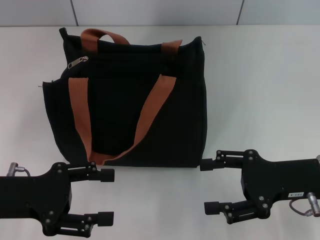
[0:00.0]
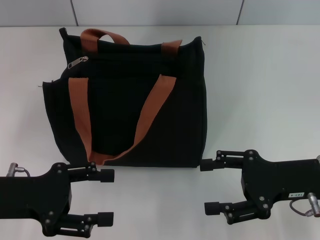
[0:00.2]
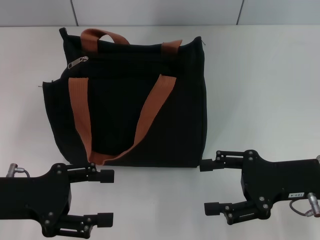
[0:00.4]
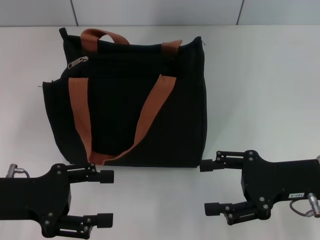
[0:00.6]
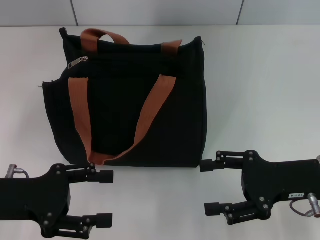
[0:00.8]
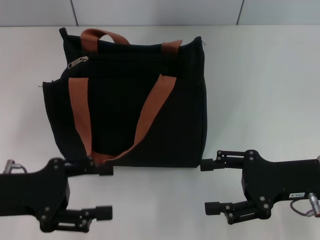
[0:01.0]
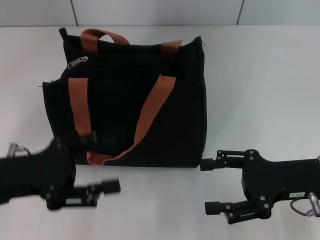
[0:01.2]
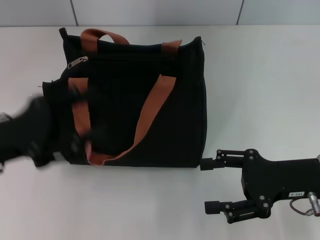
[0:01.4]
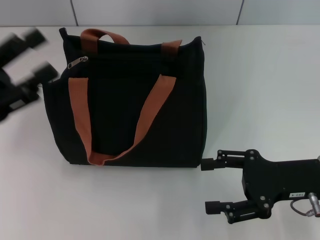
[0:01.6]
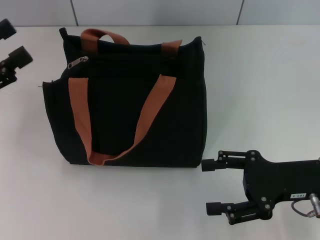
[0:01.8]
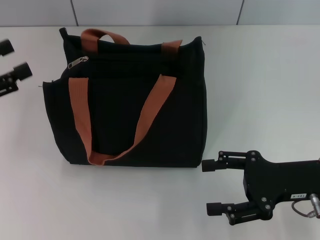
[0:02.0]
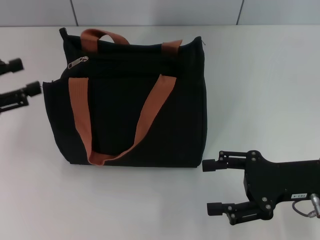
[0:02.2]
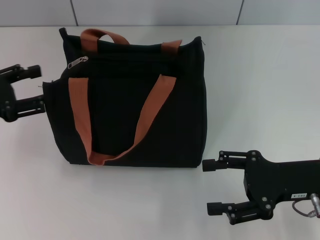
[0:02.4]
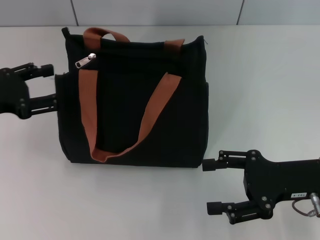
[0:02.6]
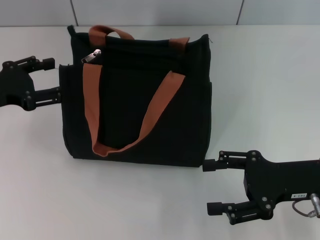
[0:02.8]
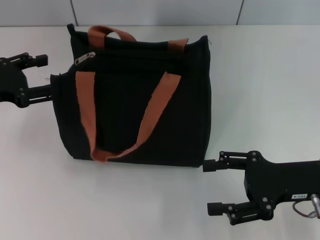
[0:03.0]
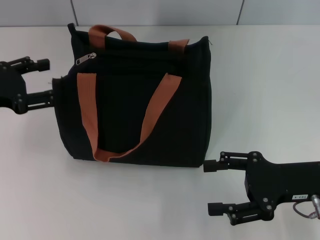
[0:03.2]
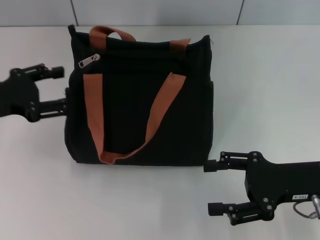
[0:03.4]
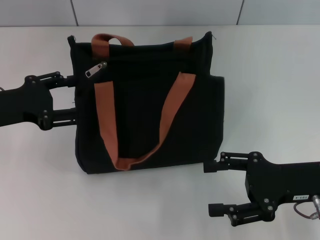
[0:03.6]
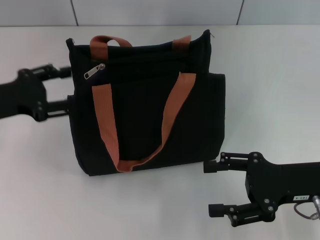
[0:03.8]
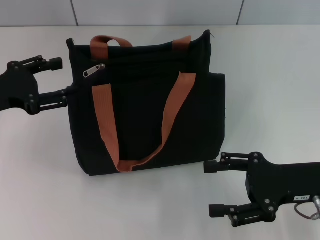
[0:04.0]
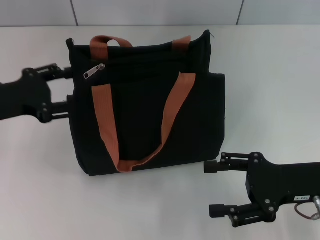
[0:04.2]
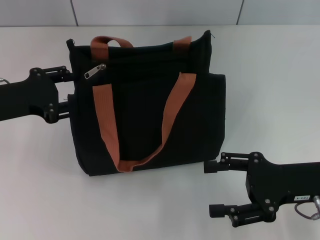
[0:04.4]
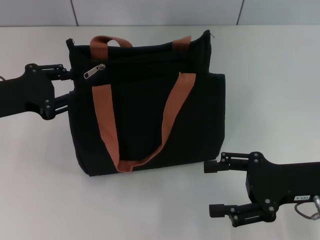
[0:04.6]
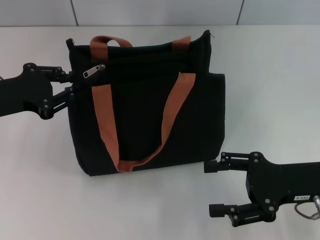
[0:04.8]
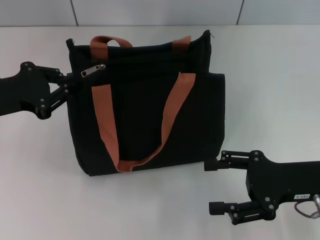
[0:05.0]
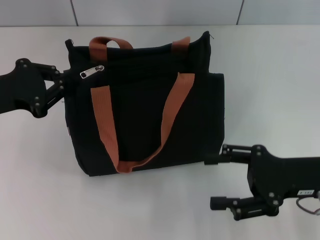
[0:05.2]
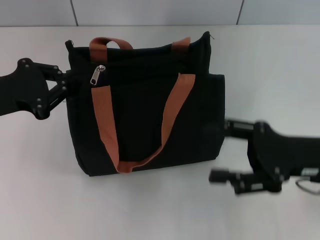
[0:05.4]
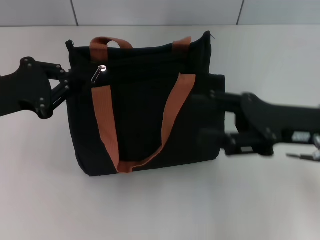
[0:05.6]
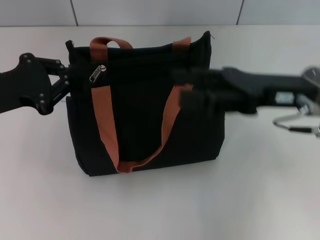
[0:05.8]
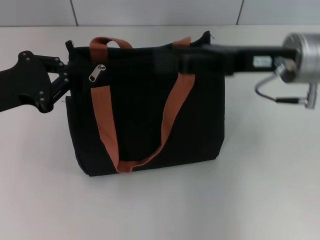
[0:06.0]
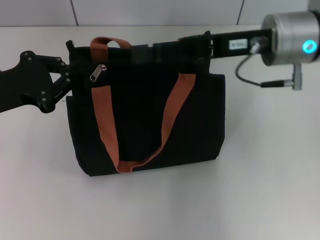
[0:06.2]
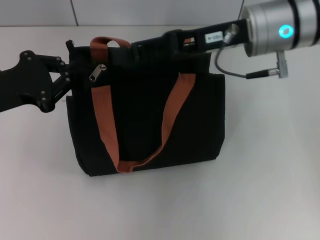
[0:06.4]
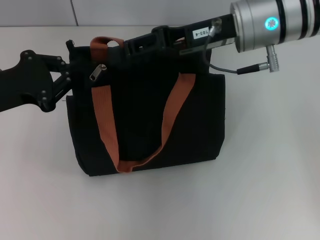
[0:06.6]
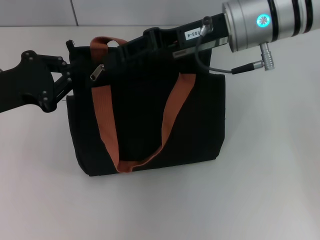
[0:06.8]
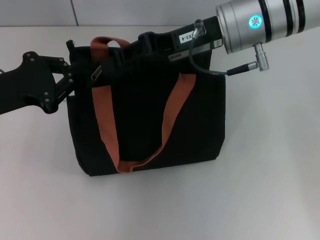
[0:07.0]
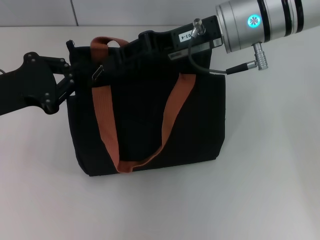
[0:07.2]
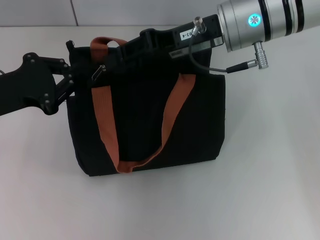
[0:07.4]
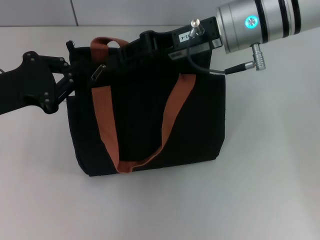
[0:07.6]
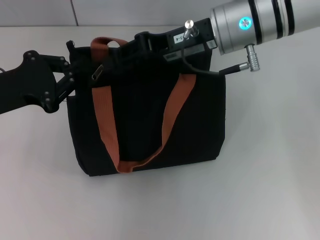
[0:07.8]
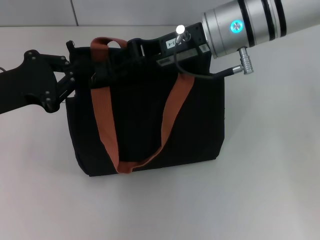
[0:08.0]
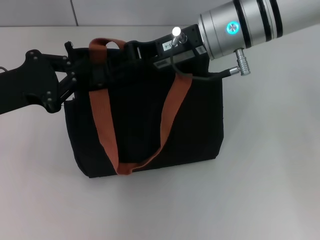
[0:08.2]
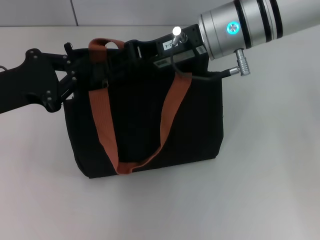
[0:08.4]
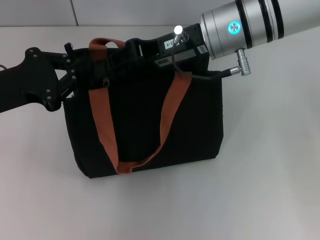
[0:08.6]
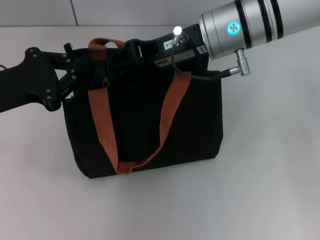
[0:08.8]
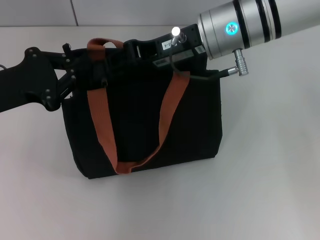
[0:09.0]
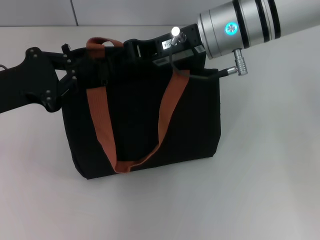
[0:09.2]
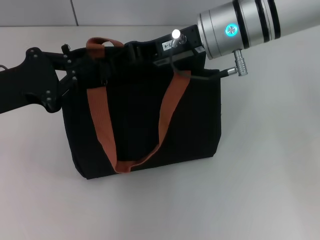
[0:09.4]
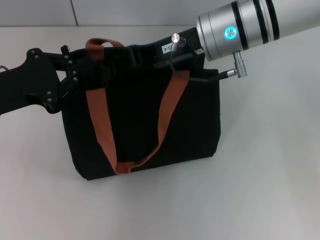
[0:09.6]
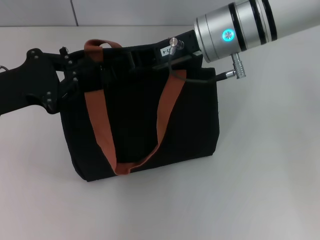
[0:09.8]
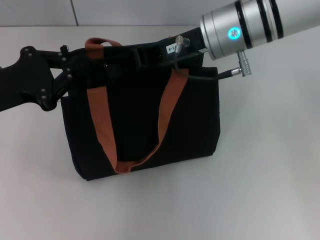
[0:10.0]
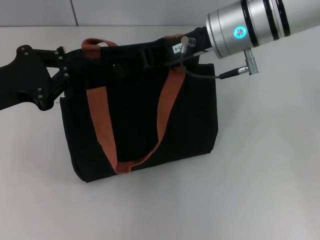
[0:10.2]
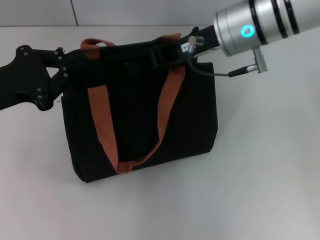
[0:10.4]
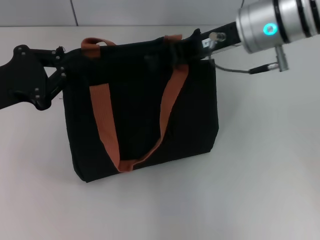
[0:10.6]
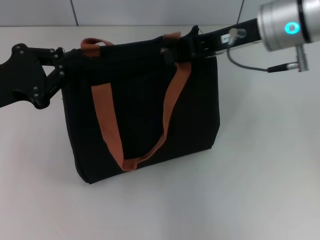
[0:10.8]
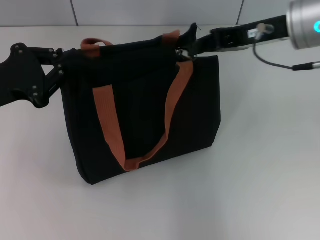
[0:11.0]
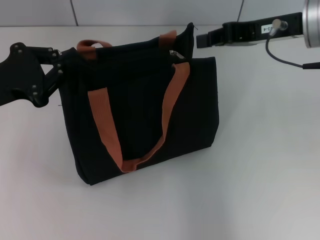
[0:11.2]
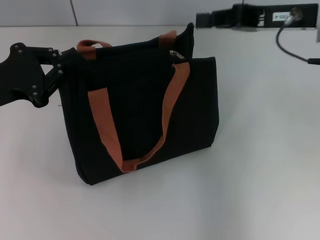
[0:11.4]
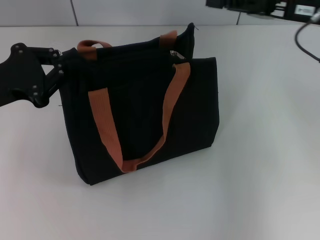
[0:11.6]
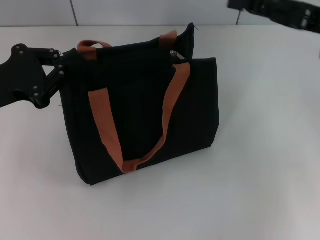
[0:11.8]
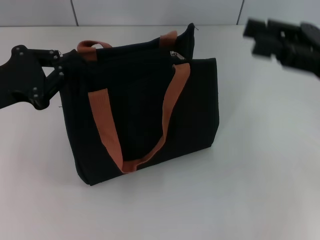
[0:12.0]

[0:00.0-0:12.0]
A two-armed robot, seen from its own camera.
Step, 0.0 to 11.0 s: Pull up the zipper with your right hand.
0.0 to 1.6 s: The left gripper ends up about 5 cm from where it was.
1.6 to 3.0 s: The left gripper heads forward, covering some 5 cm.
3.0 to 4.4 s: The grippers move only a little.
4.4 to 6.0 s: The left gripper closes. Meanwhile the right gripper travels forward, upward and to the left by roughly 15 cm.
6.0 to 7.6 s: The right gripper moves to the left, about 5 cm, and closes.
7.6 to 10.4 s: The grippers make only small movements.
10.4 to 12.0 s: The right gripper shifts roughly 20 cm to the right and backward, and opens up.

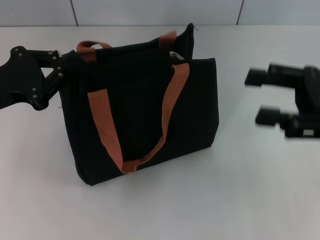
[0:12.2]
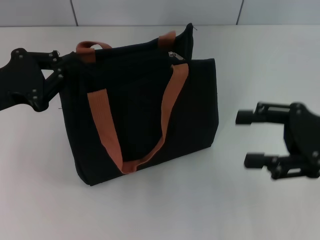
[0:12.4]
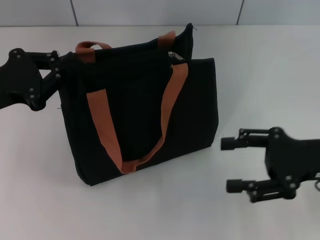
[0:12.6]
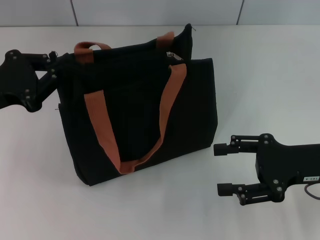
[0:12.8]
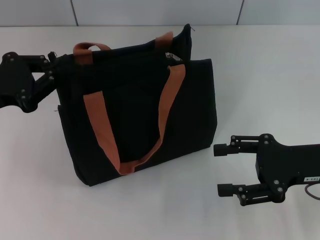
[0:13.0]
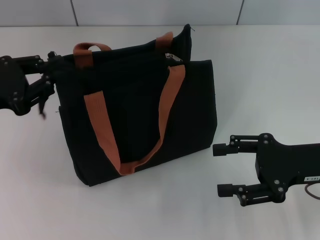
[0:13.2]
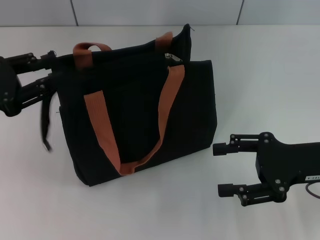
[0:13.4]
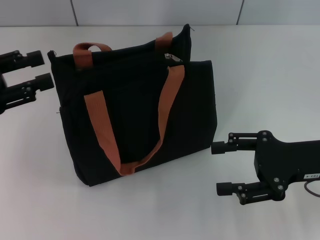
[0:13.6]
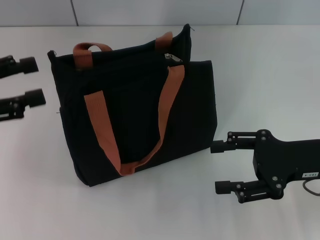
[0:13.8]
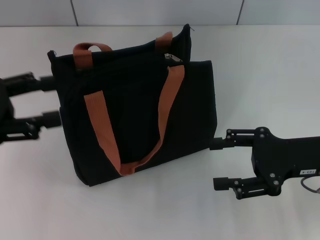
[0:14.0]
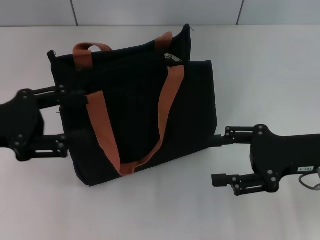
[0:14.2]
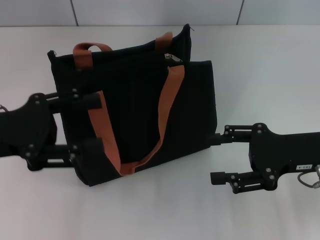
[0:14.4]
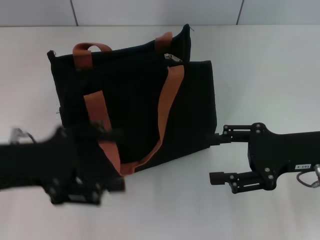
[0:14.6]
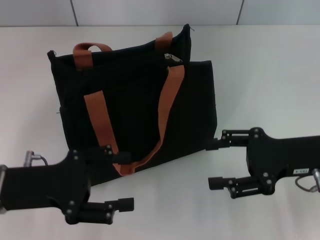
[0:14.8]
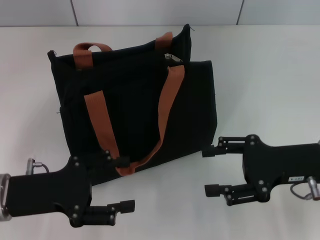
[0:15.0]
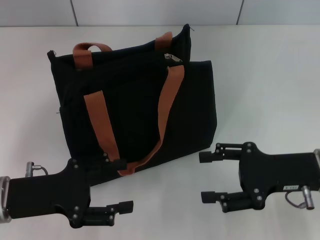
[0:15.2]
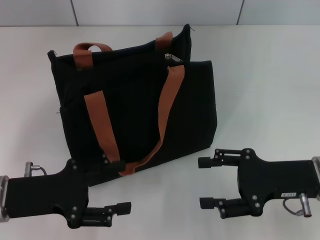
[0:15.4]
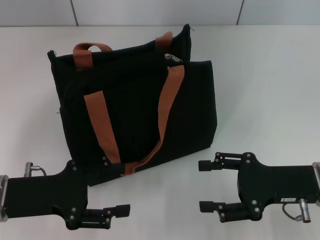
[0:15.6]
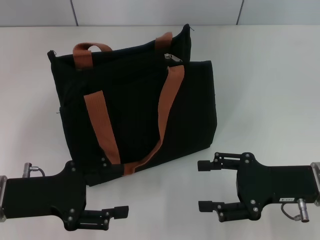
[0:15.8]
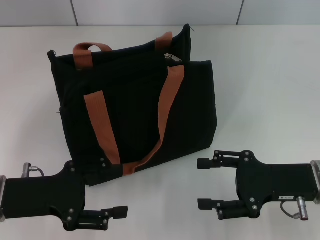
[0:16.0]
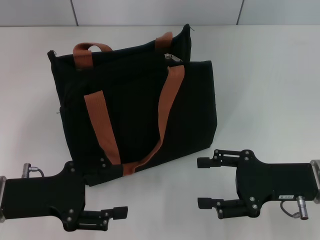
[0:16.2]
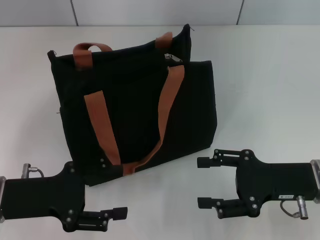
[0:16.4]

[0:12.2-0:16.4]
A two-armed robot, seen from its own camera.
Step, 12.2 to 13.4 s: Grab the zipper with your left hand.
12.2 to 13.6 s: The right gripper heads downward, covering approximately 5 cm, and opens its fingers. The left gripper opens up.
13.6 to 15.0 s: The left gripper goes roughly 15 cm to the right, downward and backward, and opens up.
15.0 to 16.4 s: The grippers make only small movements.

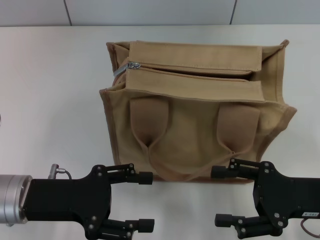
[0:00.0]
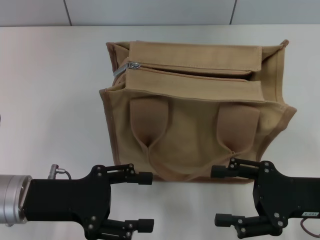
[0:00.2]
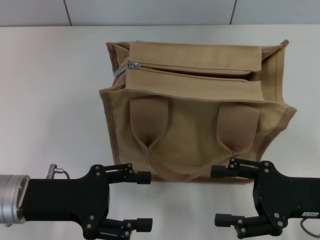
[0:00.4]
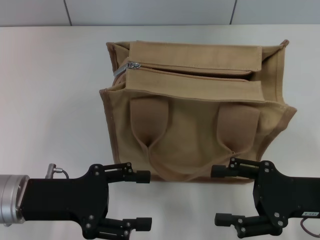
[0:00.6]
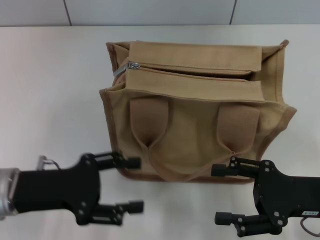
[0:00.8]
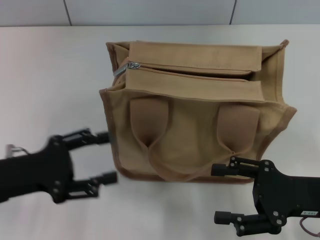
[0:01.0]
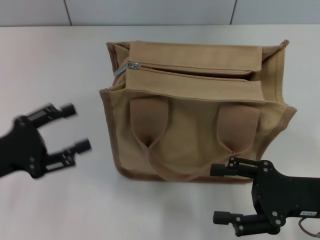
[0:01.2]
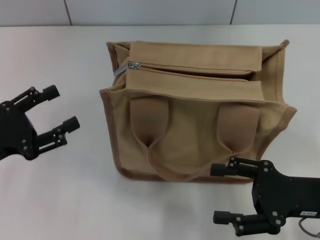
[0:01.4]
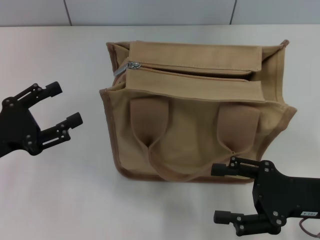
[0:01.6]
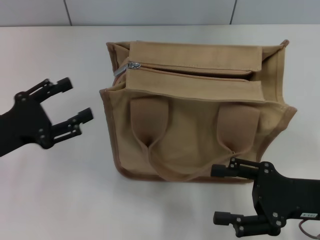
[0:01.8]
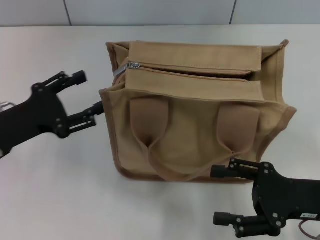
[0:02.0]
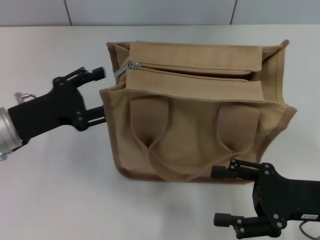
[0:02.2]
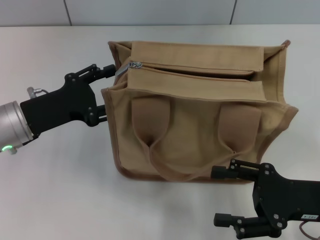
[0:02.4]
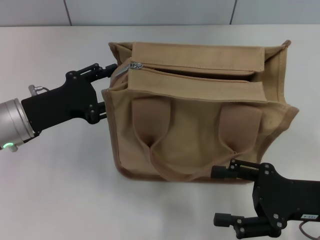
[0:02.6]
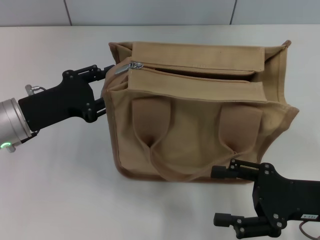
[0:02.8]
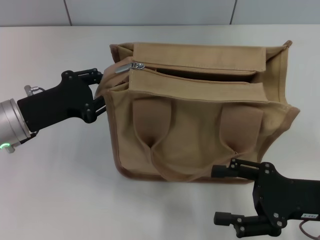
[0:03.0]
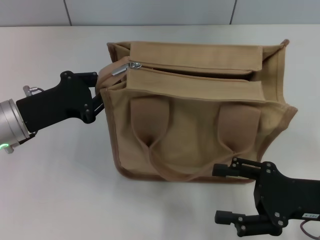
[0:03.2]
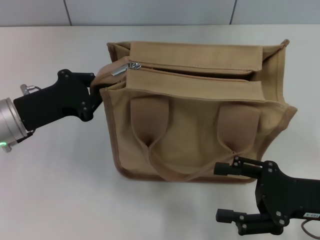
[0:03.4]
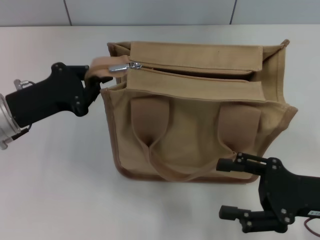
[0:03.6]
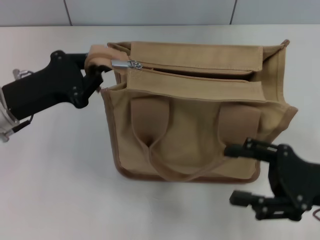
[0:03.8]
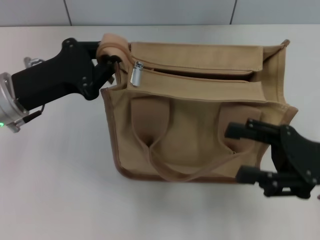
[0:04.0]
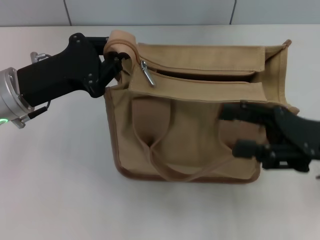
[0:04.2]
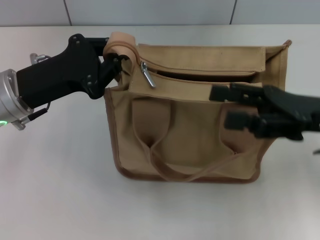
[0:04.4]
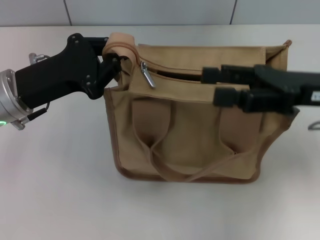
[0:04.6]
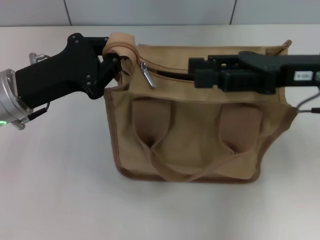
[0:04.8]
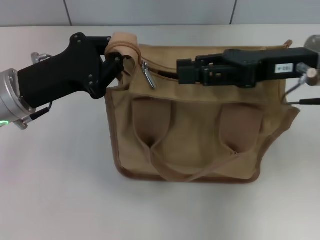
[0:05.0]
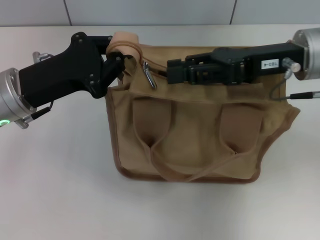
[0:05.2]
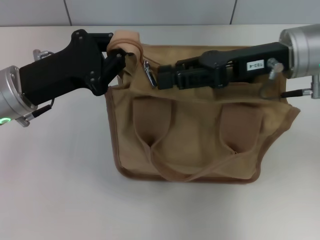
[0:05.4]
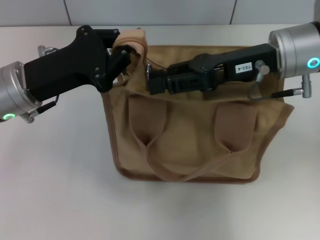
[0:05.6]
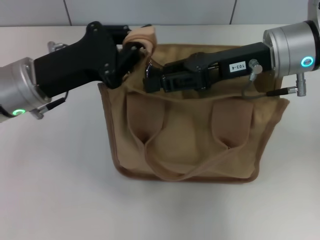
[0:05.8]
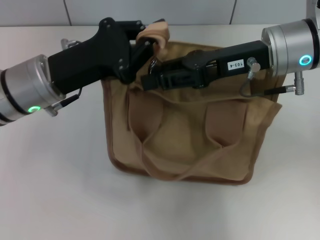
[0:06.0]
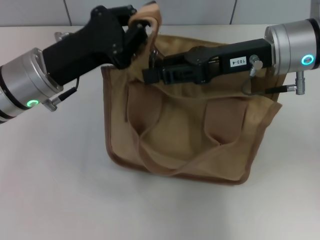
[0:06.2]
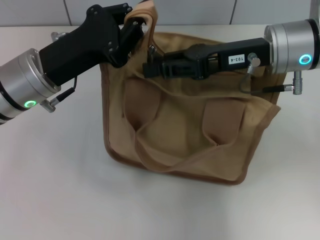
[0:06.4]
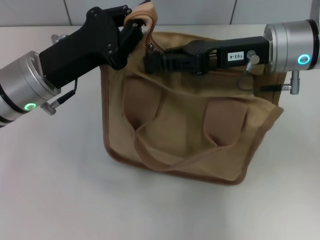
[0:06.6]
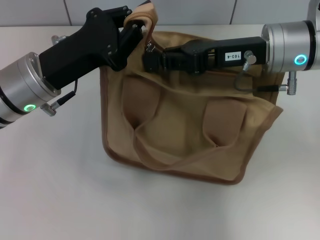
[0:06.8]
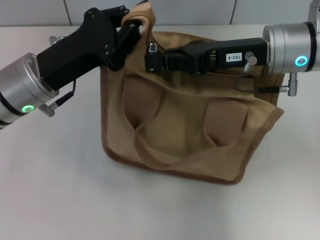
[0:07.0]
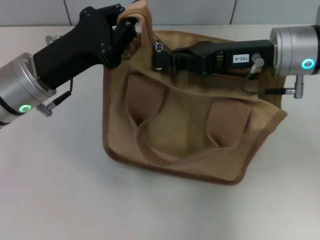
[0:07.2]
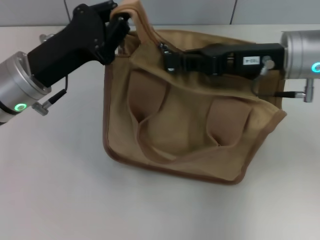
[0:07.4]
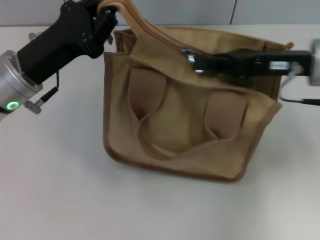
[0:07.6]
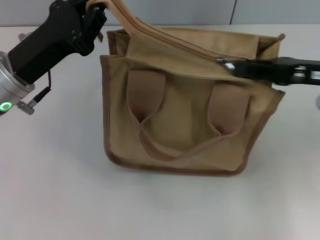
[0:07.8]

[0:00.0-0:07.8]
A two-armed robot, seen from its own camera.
0.0 to 1.6 s: The left gripper shifts roughly 10 cm to the left.
1.6 to 3.2 s: The left gripper goes roughly 10 cm forward and to the right, and closes its fingers.
3.2 to 4.6 s: The left gripper moves about 5 cm. Meanwhile the right gripper shifts some 15 cm upward and forward.
4.6 to 6.2 s: The right gripper goes approximately 10 cm to the left and forward, and closes its fingers.
6.2 to 7.8 s: The right gripper is displaced to the right by about 10 cm, and closes up.
